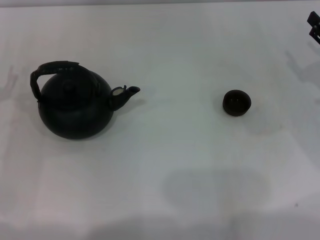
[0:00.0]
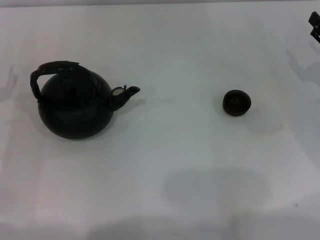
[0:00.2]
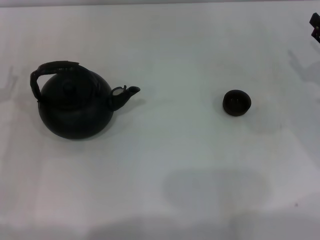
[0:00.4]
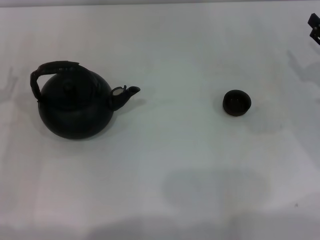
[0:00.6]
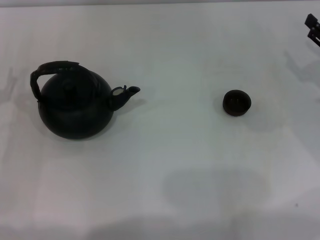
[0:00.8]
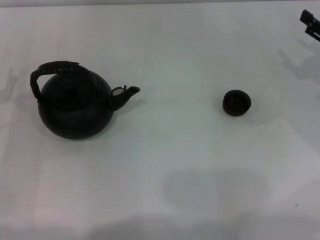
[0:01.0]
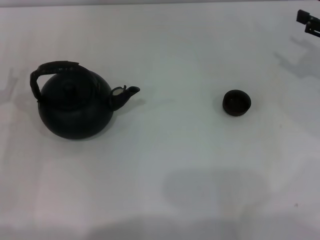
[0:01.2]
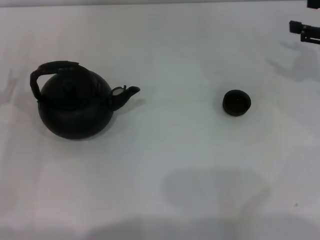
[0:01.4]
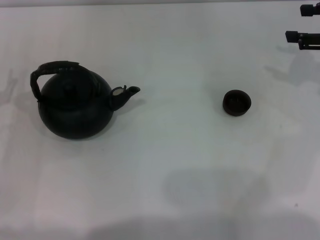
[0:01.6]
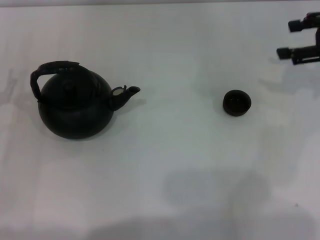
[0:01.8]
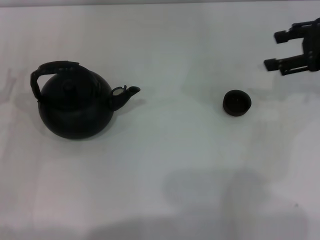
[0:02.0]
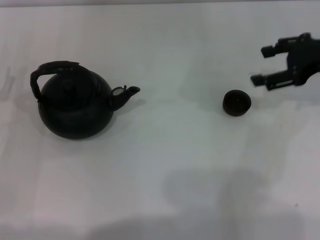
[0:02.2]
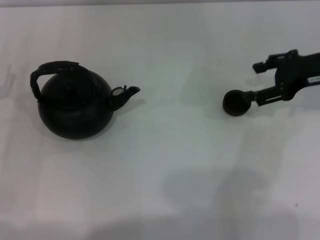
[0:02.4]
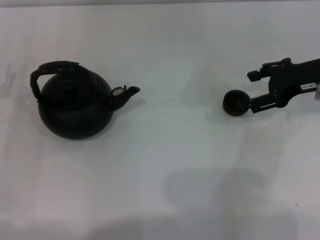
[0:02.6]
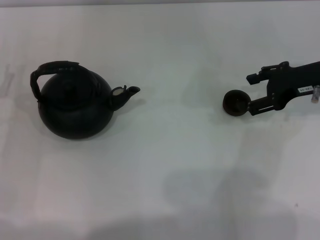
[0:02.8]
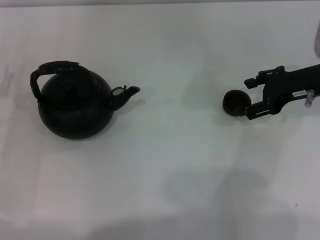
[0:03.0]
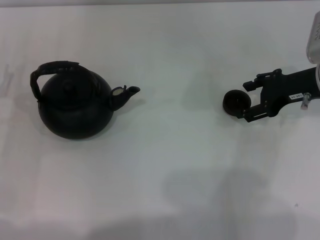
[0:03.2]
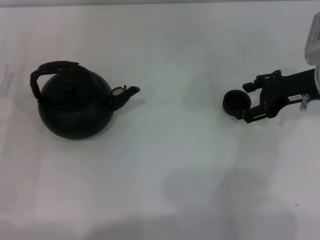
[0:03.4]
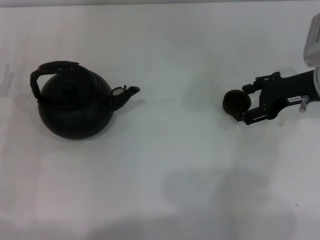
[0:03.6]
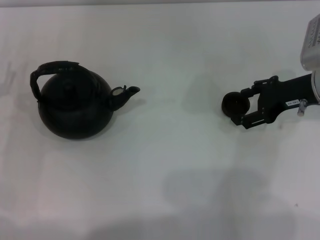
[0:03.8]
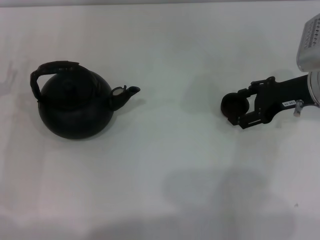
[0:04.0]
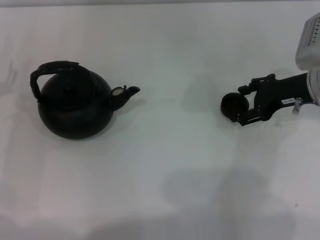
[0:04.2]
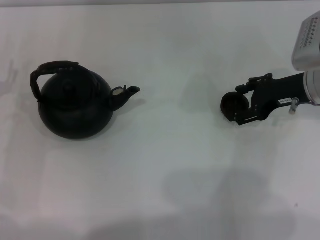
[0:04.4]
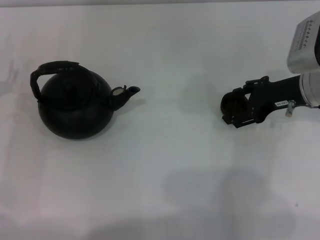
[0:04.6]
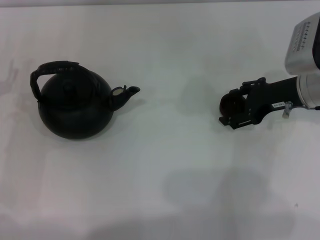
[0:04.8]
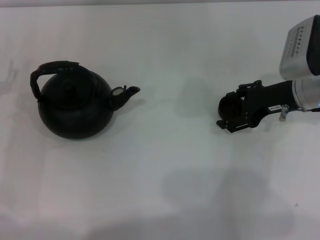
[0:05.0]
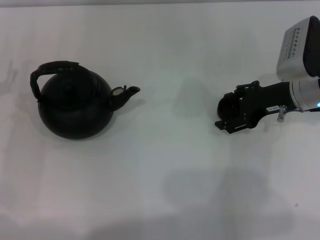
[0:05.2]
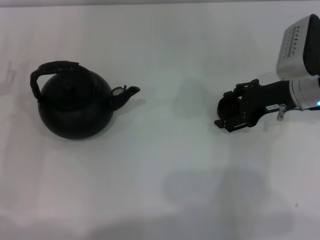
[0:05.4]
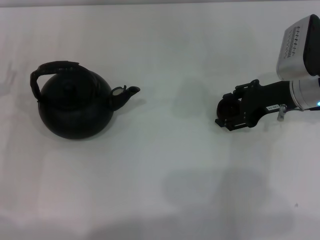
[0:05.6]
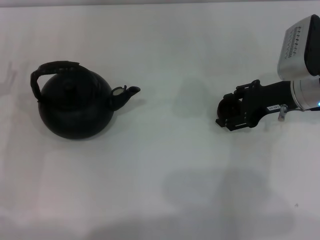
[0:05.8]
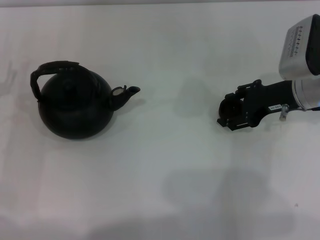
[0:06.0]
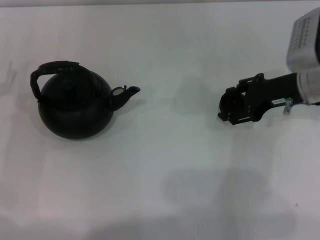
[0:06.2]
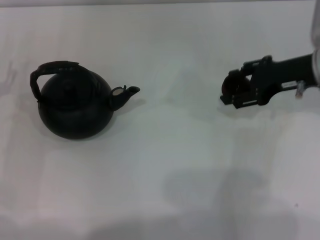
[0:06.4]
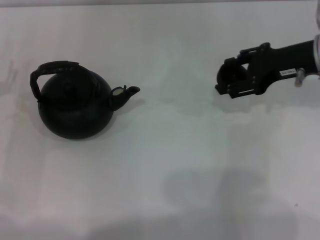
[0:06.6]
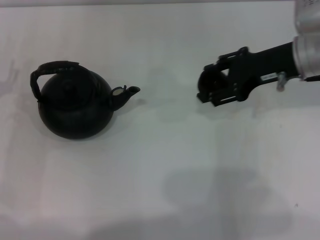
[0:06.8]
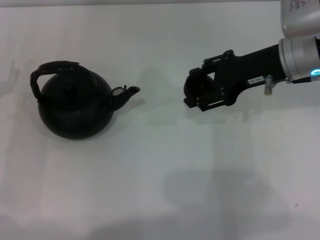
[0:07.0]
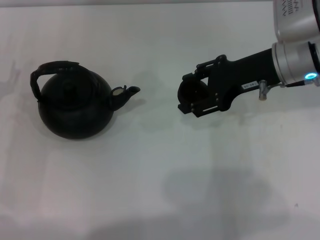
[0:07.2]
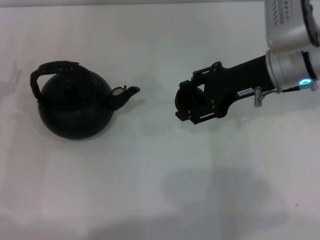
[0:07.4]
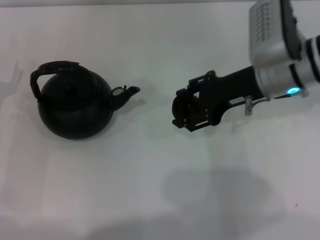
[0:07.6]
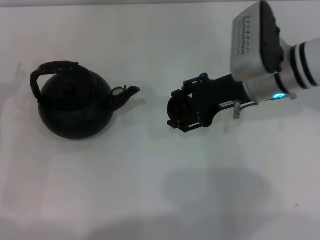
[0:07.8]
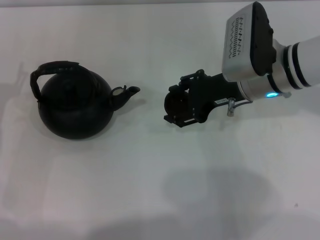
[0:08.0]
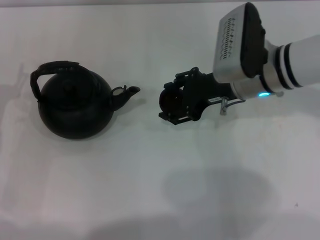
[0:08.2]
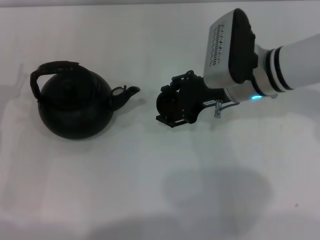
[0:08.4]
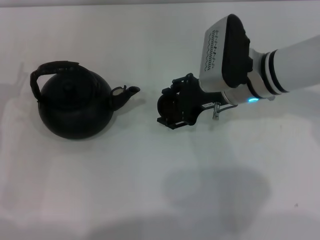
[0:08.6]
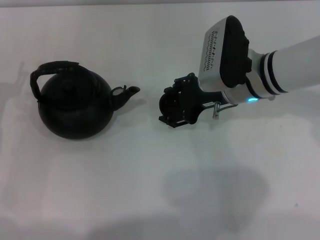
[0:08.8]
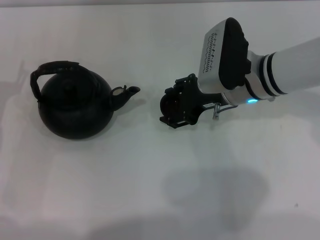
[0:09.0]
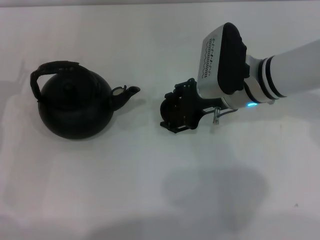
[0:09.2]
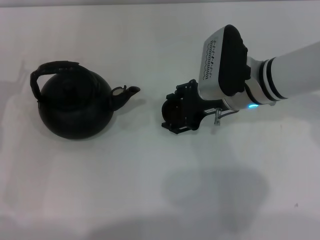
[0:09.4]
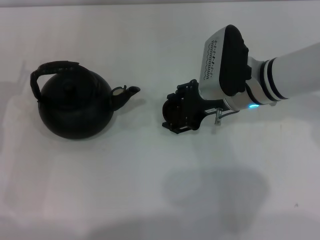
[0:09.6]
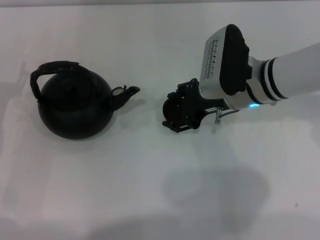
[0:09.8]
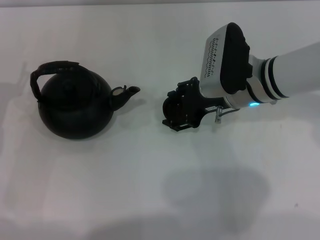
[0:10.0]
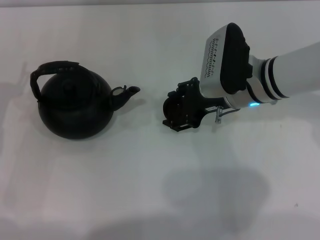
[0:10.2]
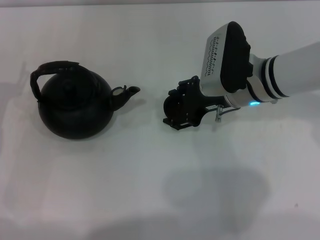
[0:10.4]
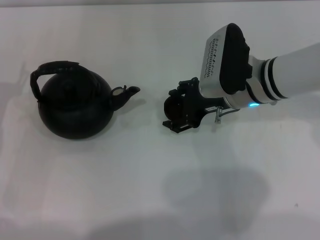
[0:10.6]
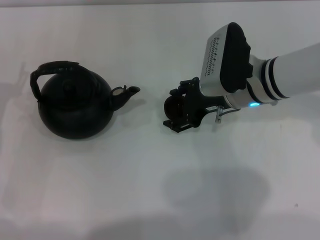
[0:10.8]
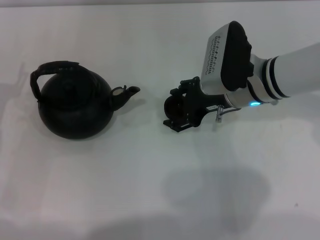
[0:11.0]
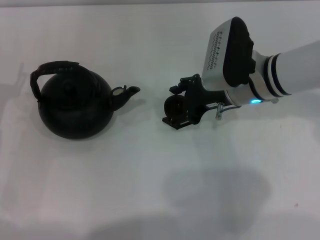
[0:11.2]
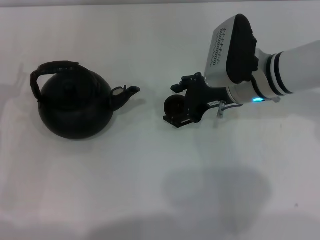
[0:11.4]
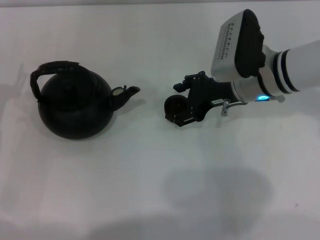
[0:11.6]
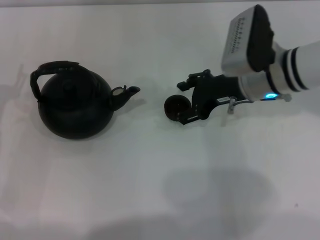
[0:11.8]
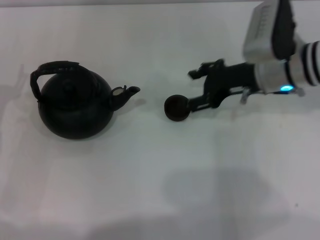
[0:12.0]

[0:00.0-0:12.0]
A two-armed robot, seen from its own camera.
Task of the whole recording: Grasp the handle of the teapot with one hand and pour tea into the teacup.
Step, 0:00.0 to 0:06.6: Pick up the teacup with the right gripper.
0:00.0 to 0:01.6: The right gripper travels upward and forward by roughly 10 cm.
0:01.6 to 0:03.0: The right gripper is displaced to the left and downward by approximately 10 cm, and opens its fingers.
0:03.0 to 0:04.4: The grippers stay close to where they were, moving slightly.
0:04.4 to 0:06.0: The right gripper closes.
0:06.0 to 0:07.6: The right gripper heads to the left, covering roughly 5 cm.
0:07.6 to 0:09.0: The right gripper ends up some 5 cm from where it was.
0:09.0 to 0:10.4: Both grippers stay put.
0:10.4 to 0:12.0: The right gripper moves approximately 5 cm, and opens.

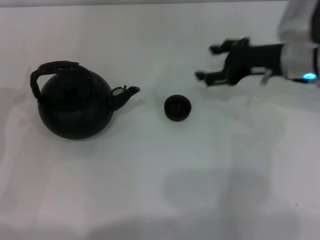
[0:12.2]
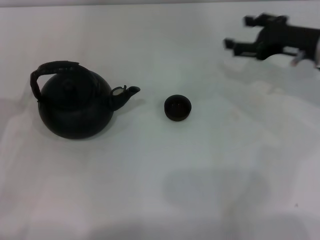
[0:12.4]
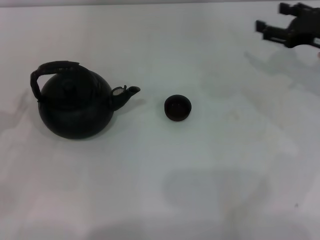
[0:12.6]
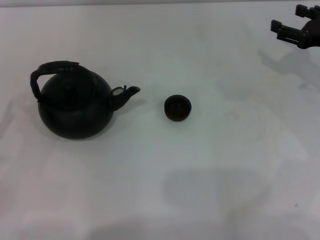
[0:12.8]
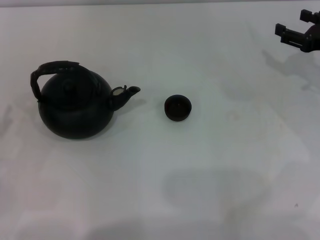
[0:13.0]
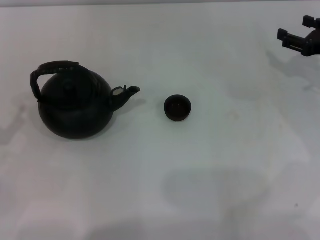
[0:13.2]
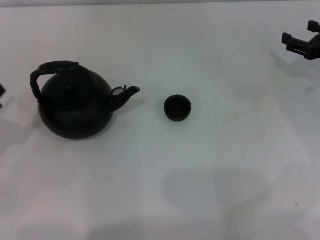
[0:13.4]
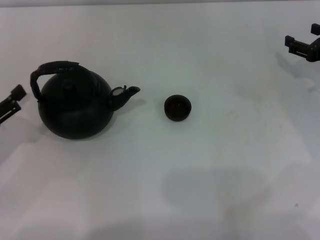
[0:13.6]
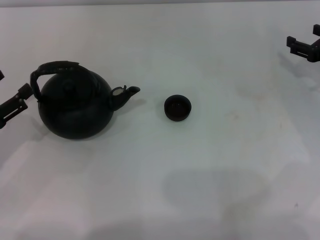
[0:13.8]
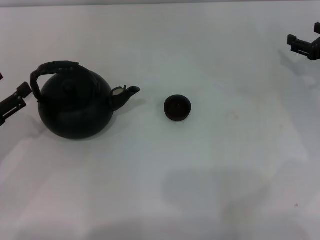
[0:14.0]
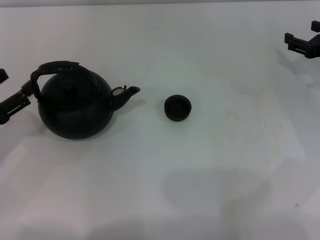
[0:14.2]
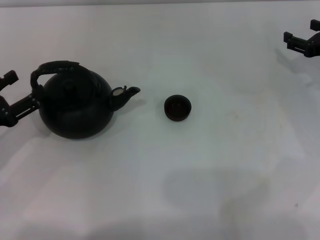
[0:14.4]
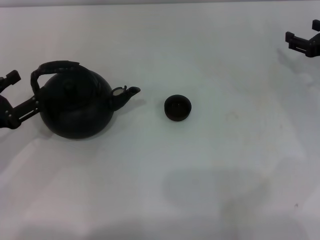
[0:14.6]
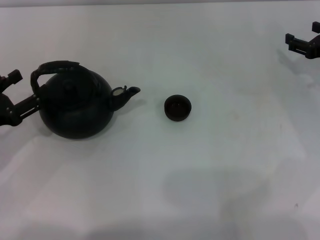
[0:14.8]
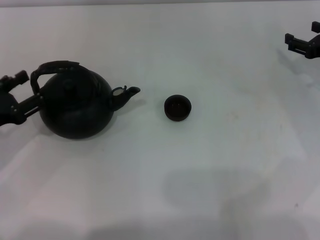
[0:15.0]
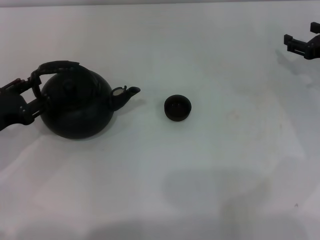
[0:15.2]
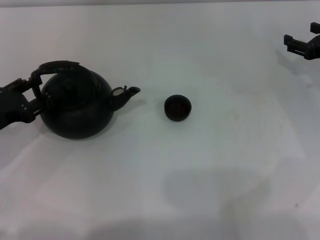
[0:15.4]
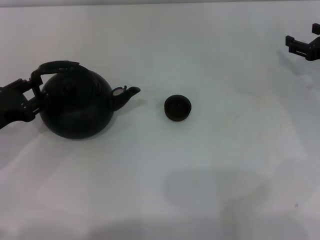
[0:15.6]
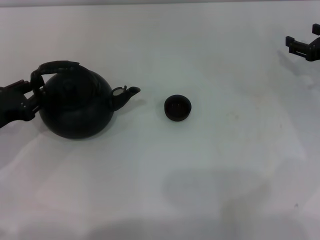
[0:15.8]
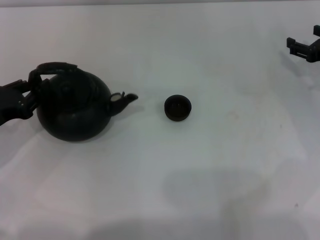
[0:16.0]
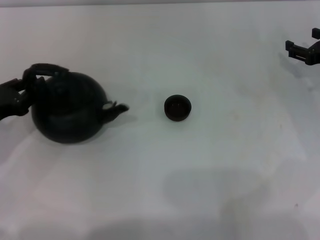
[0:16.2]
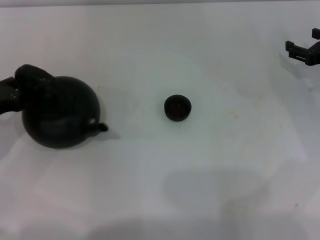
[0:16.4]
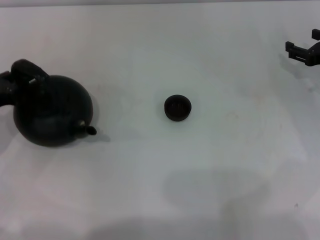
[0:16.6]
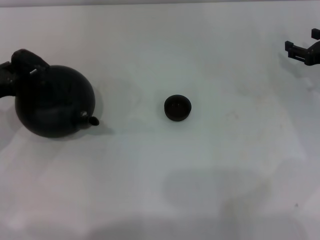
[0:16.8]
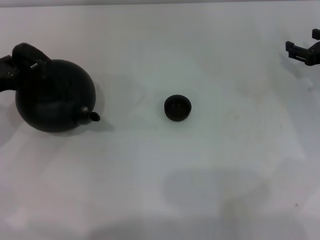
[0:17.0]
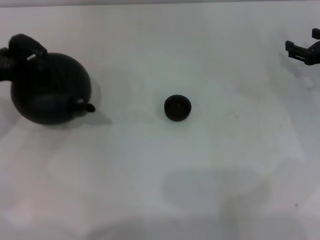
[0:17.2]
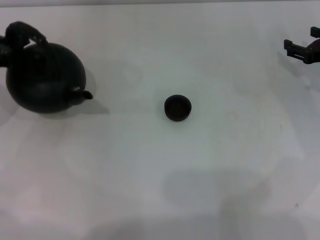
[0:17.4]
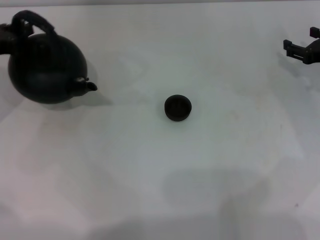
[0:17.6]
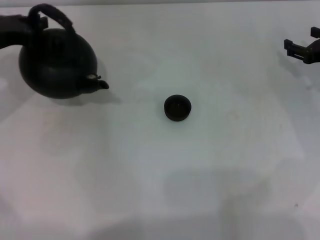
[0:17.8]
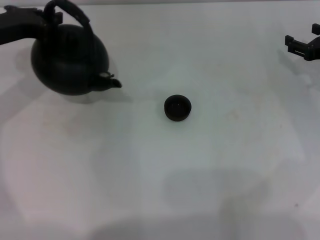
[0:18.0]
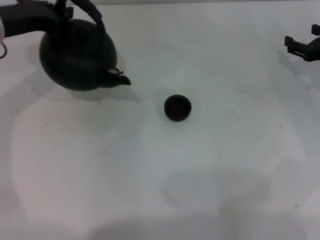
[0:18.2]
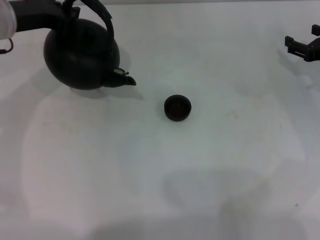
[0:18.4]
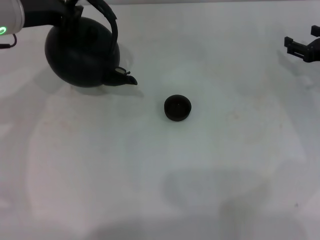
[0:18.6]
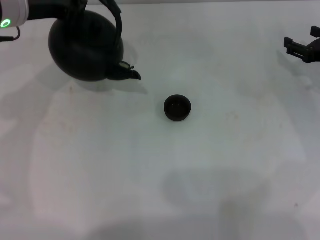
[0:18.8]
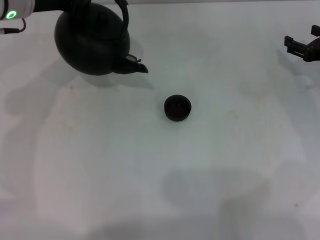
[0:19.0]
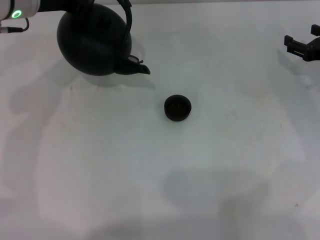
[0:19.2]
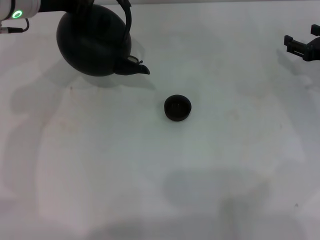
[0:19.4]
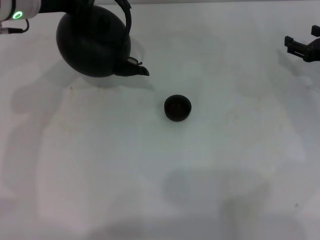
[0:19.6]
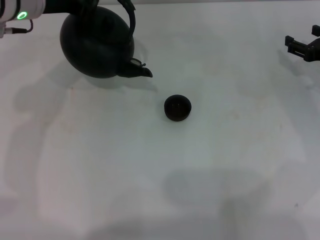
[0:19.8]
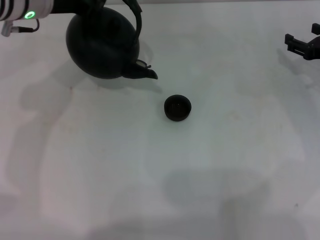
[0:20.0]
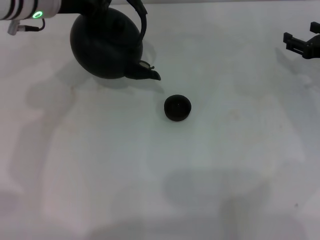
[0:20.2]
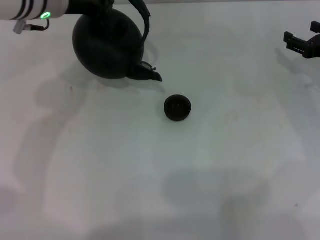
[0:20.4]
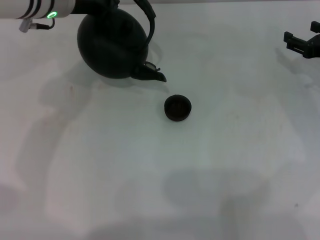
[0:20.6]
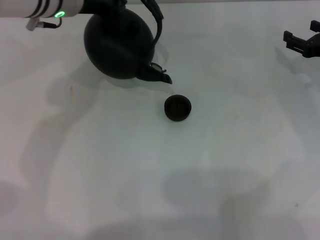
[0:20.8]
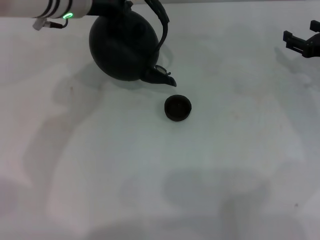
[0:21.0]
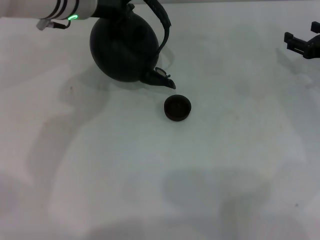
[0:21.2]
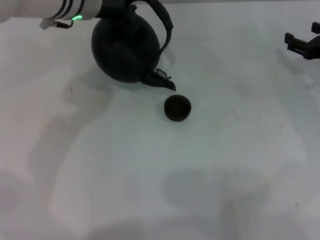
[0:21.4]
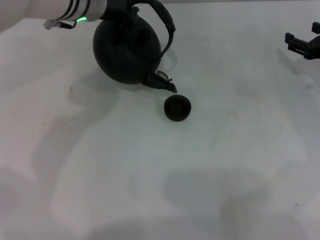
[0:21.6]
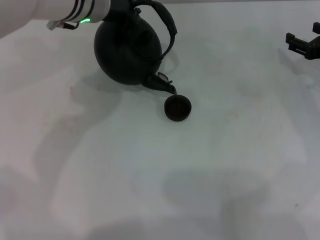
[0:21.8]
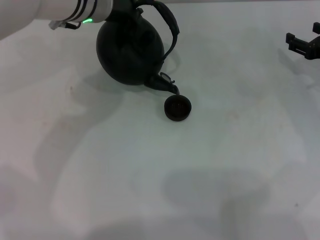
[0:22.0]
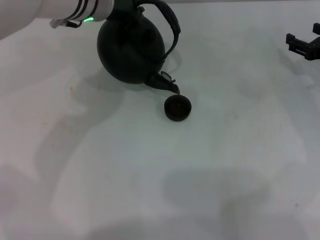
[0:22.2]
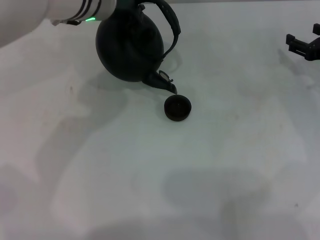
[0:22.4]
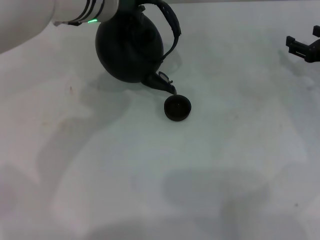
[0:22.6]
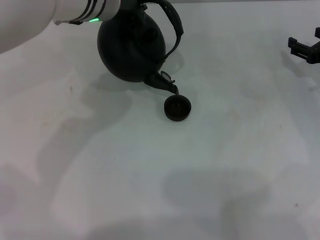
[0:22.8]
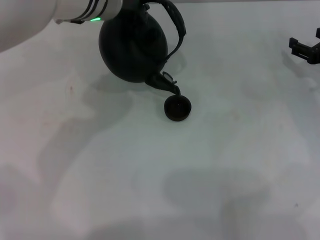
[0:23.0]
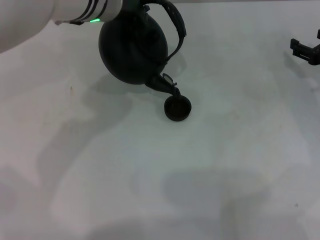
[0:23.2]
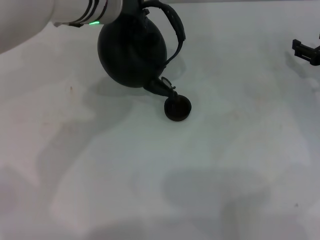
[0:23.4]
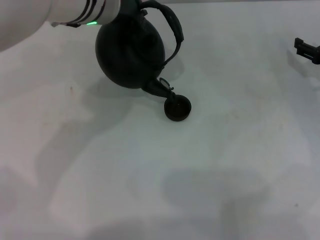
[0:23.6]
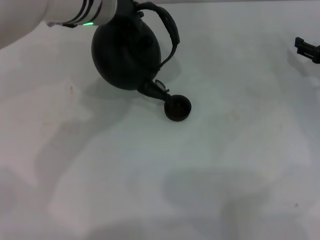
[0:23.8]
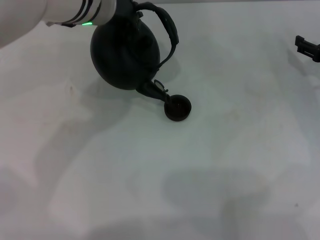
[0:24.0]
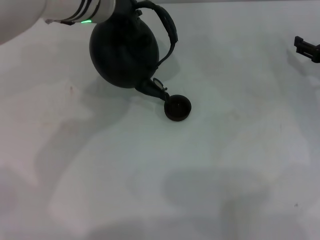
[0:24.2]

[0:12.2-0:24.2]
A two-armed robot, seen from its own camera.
Task of the whole recording: Grasp the handle of the teapot with one hand and pour tea into the teacup.
Step, 0:12.2 to 0:18.6: Pick up the teapot with the left gripper.
0:12.2 to 0:13.8: The right gripper moves to the right, about 10 cm.
0:13.8 to 0:15.2: There are only small adjustments of the grippers.
0:15.2 to 0:16.6: The left gripper closes its fingers.
0:16.6 to 0:18.2: The left gripper shifts about 15 cm forward, upward and to the right.
0:18.2 to 0:19.8: The left gripper heads to the right, covering some 5 cm.
0:19.8 to 0:21.2: The left gripper shifts roughly 5 cm to the right.
0:21.2 to 0:24.2: The grippers move only a little.
